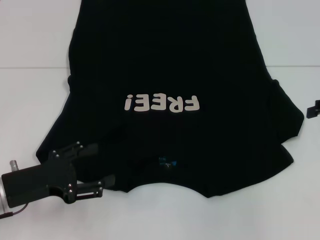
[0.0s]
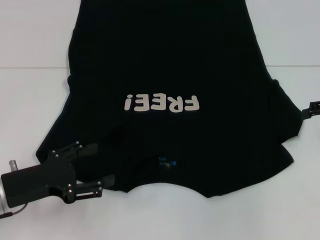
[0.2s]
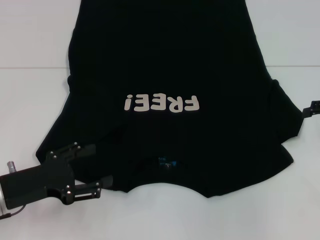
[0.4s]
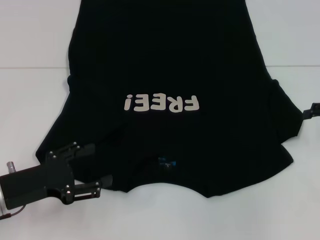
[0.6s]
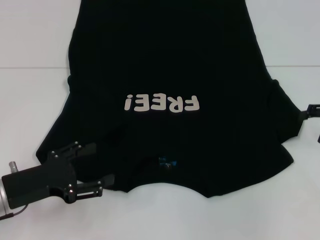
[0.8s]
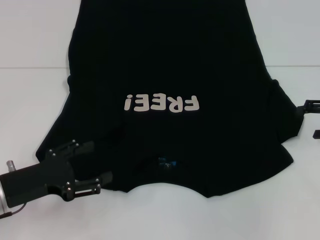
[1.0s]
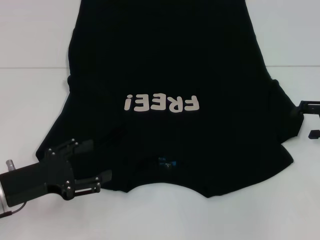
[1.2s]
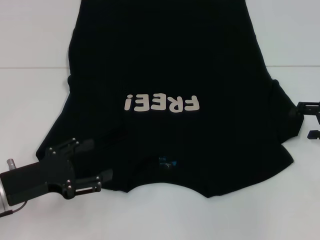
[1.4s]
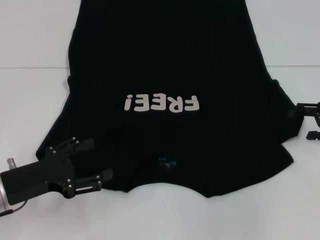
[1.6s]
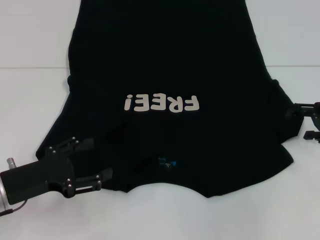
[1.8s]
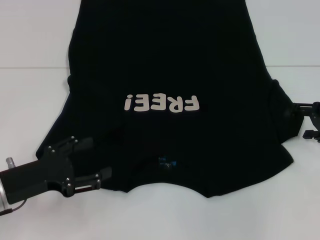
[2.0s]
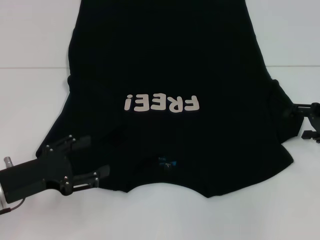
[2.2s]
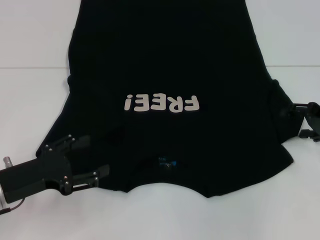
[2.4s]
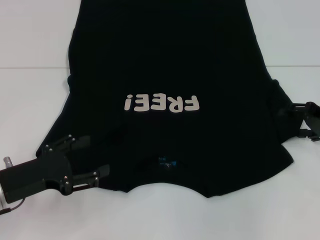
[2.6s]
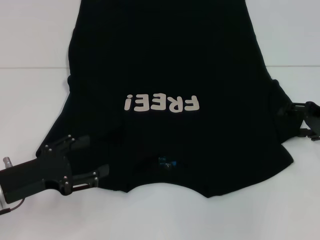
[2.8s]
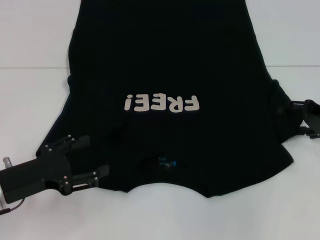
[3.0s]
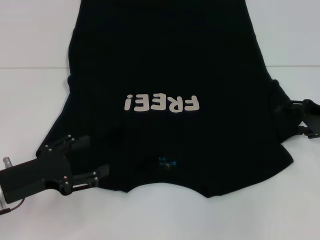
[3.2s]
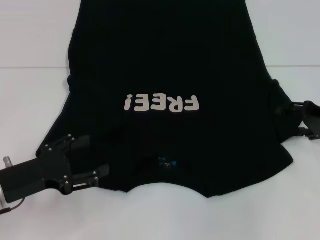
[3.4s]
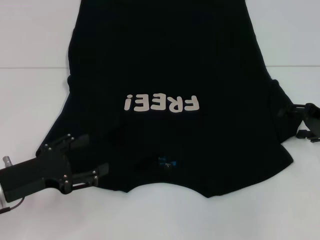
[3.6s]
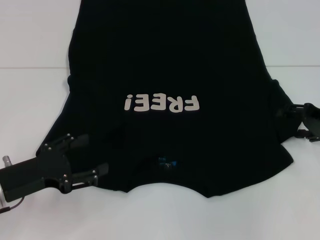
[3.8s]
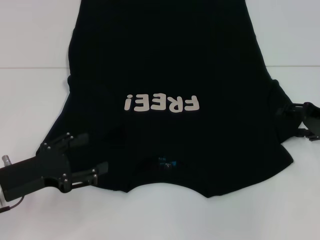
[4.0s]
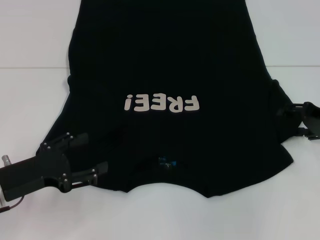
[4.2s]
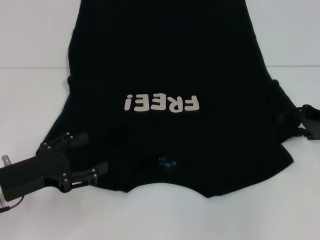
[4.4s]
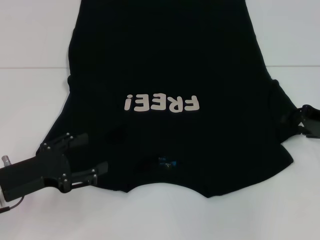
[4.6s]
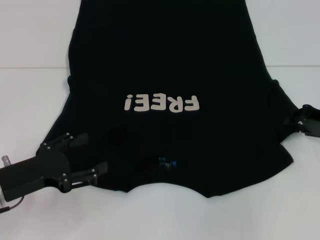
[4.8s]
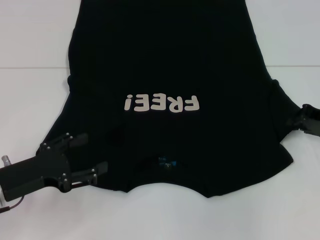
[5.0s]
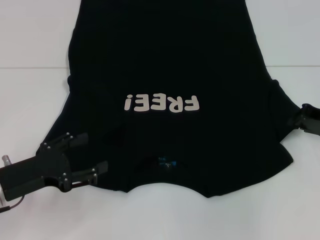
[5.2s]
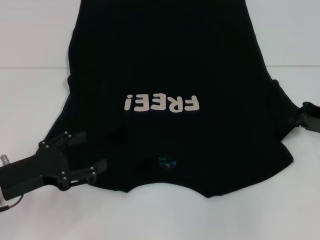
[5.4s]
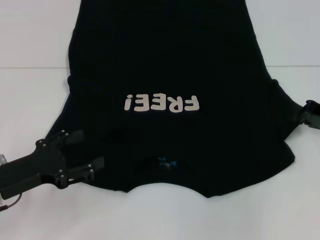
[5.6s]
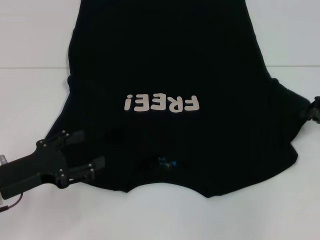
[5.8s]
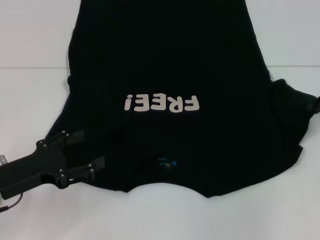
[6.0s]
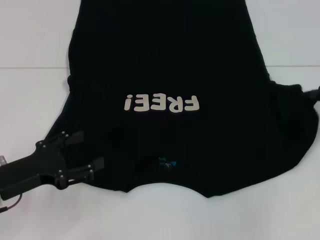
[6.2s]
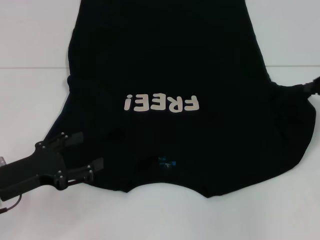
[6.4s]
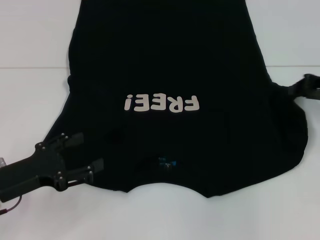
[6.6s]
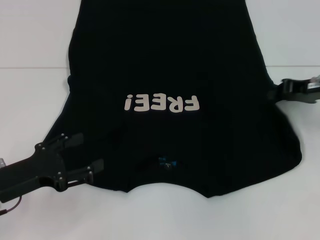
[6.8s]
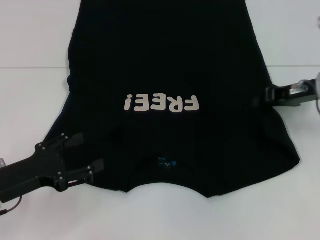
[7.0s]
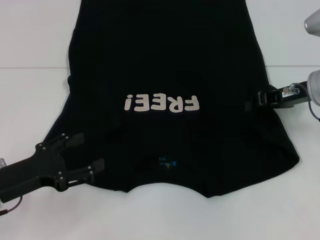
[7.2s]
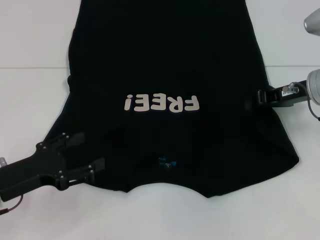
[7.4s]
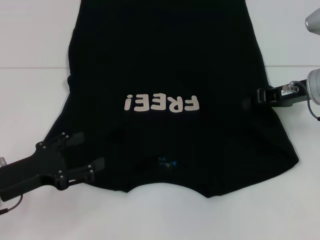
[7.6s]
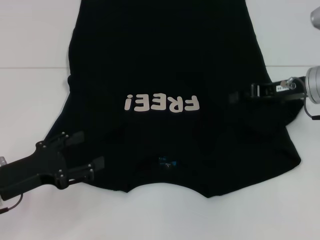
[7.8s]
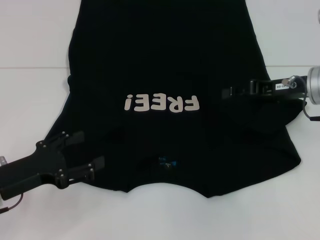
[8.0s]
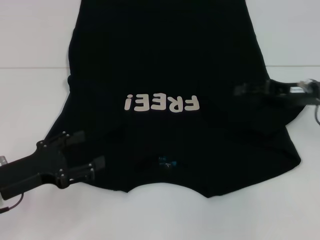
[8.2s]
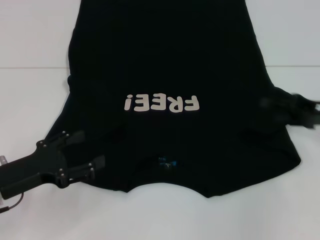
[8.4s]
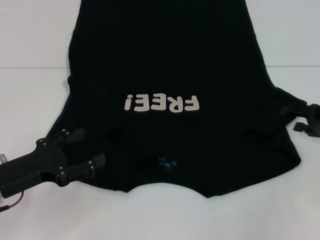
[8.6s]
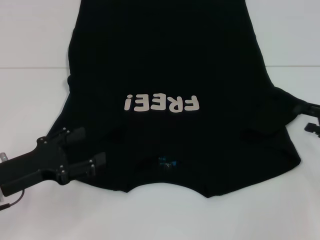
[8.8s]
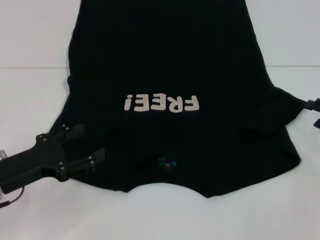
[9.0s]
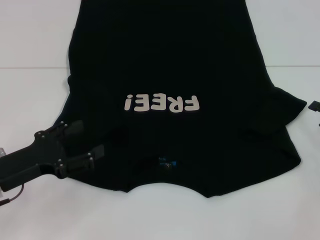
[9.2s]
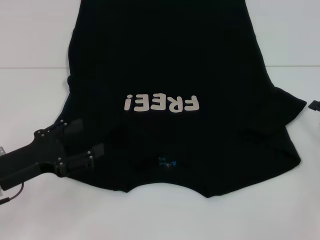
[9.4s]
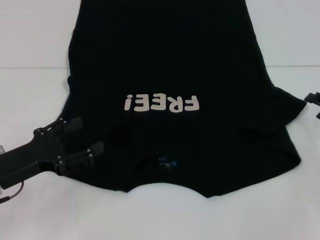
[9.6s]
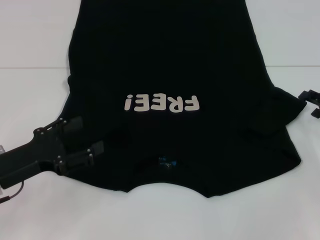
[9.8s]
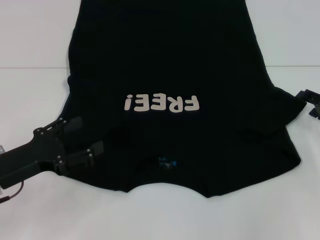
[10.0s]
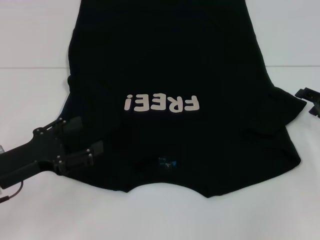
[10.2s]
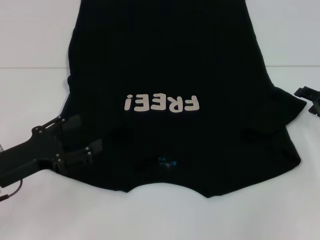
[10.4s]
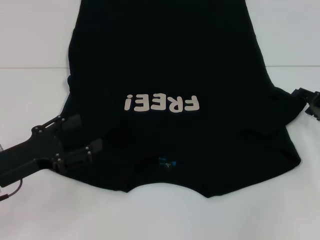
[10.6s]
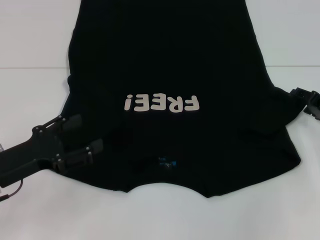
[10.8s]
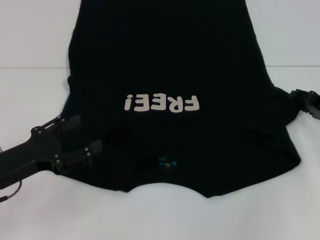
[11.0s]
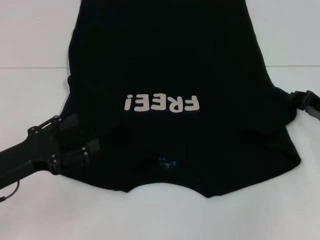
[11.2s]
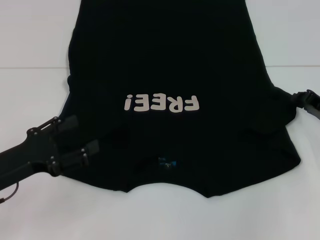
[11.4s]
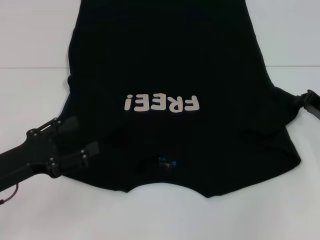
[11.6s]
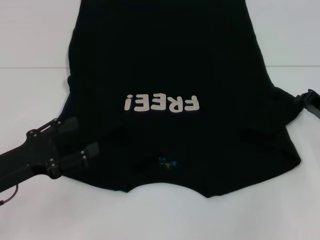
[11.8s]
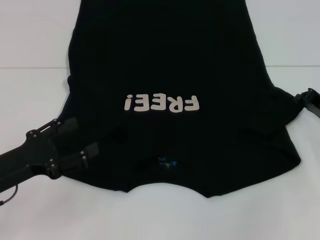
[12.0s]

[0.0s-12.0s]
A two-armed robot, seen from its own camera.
0.0s to 1.6s: The right gripper goes about 5 cm downward.
1.6s to 3.0s: The grippers stay close to where they were, moving slightly.
3.0s to 4.4s: Both grippers stay about where they are.
4.4s to 6.0s: The right gripper closes.
6.0s to 7.6s: The right gripper is displaced to the left by about 10 cm.
7.6s to 9.0s: The right gripper heads to the right, backward and downward, covering some 15 cm, and opens up.
9.0s to 10.4s: The grippers make only small movements.

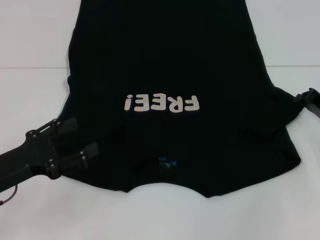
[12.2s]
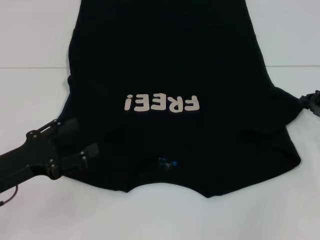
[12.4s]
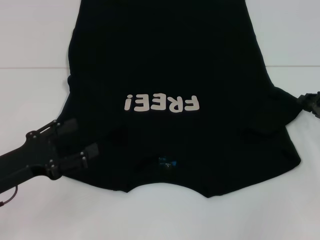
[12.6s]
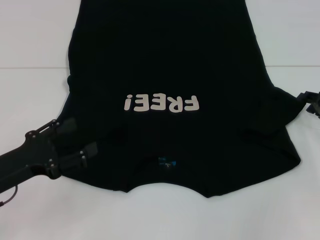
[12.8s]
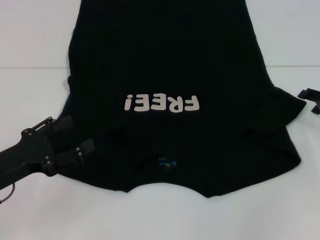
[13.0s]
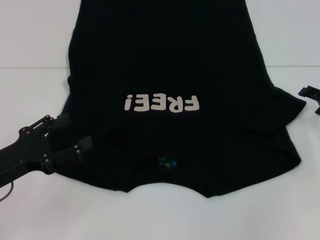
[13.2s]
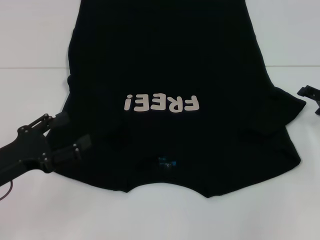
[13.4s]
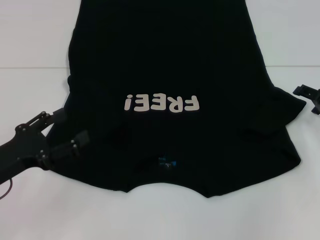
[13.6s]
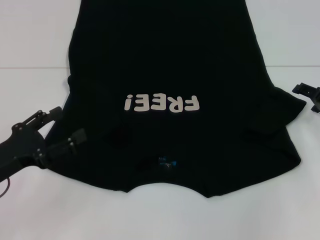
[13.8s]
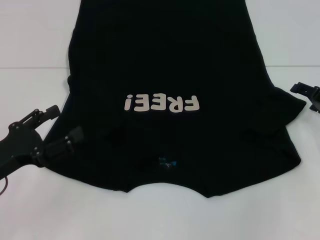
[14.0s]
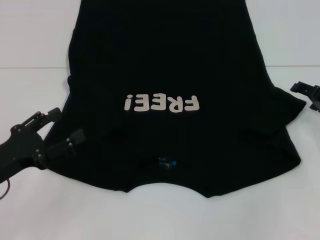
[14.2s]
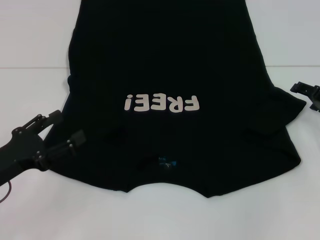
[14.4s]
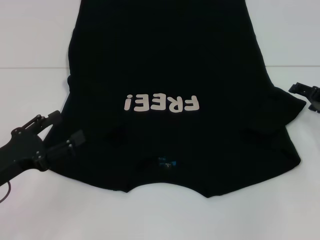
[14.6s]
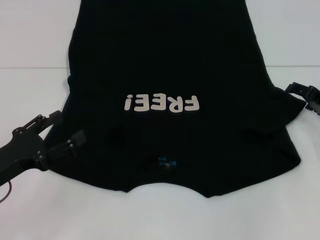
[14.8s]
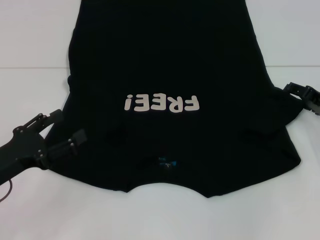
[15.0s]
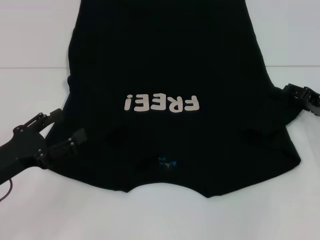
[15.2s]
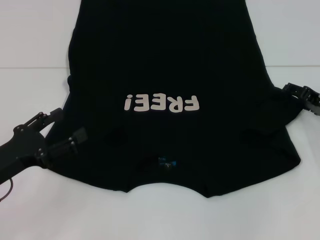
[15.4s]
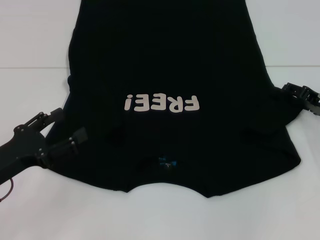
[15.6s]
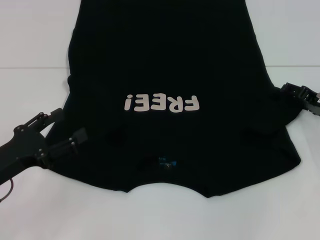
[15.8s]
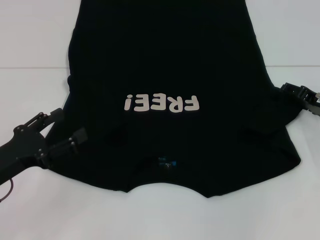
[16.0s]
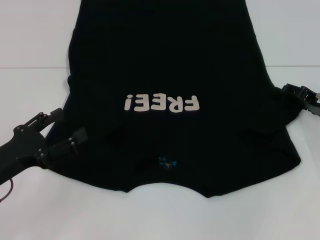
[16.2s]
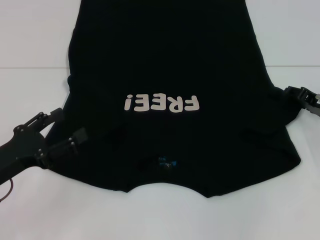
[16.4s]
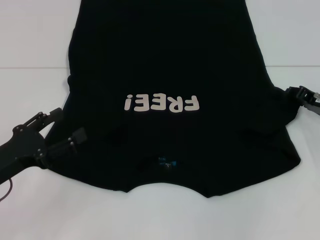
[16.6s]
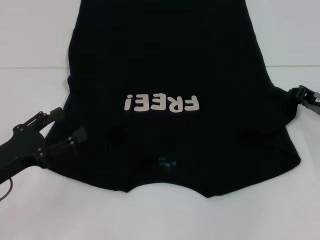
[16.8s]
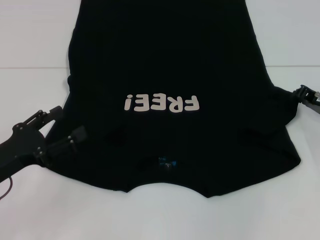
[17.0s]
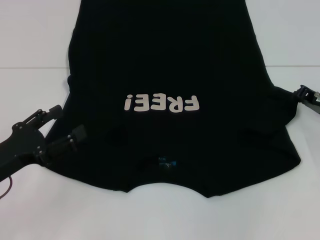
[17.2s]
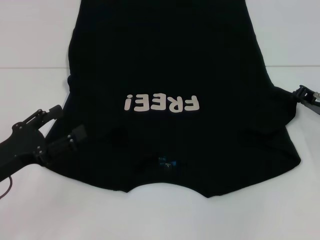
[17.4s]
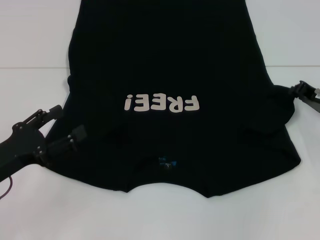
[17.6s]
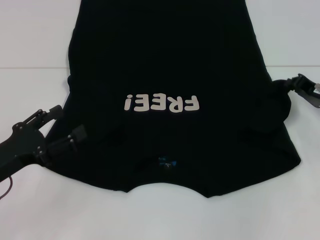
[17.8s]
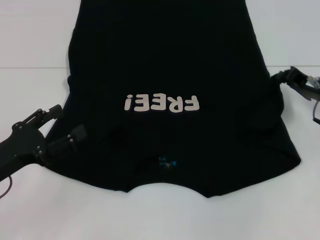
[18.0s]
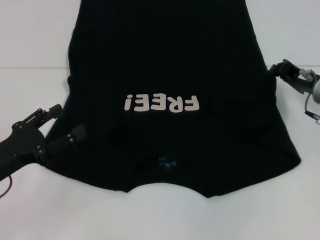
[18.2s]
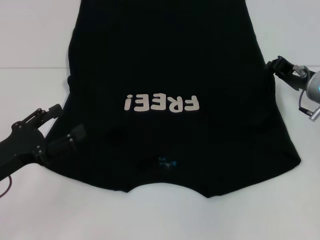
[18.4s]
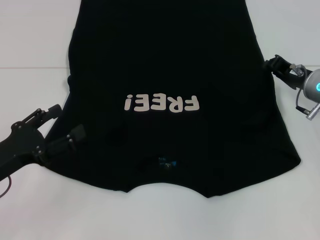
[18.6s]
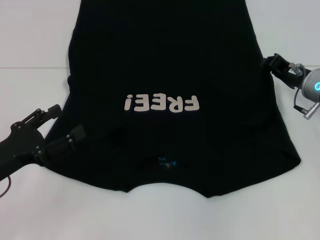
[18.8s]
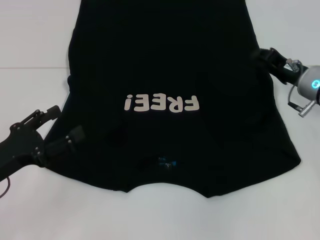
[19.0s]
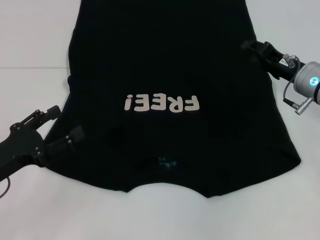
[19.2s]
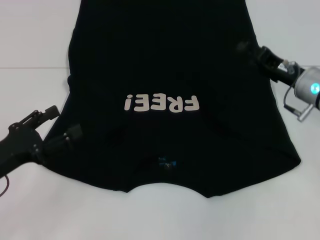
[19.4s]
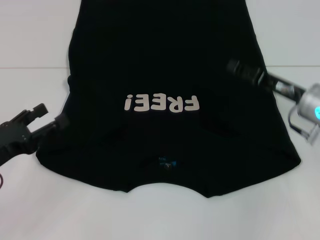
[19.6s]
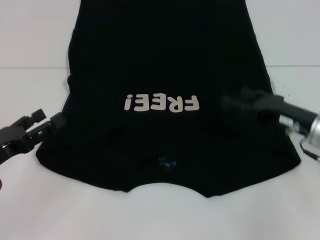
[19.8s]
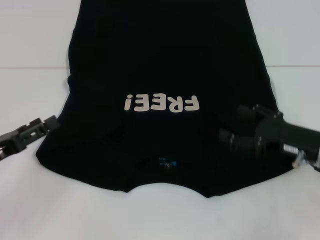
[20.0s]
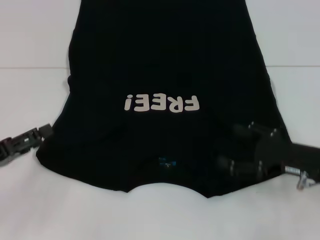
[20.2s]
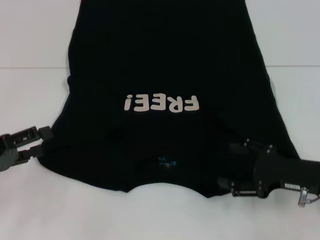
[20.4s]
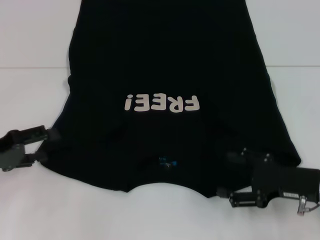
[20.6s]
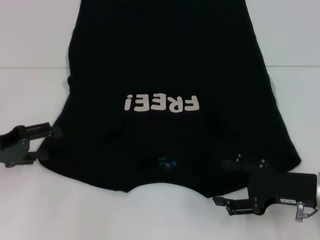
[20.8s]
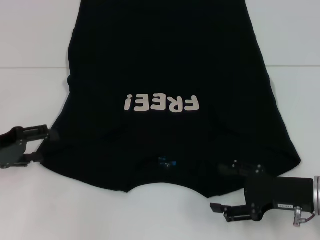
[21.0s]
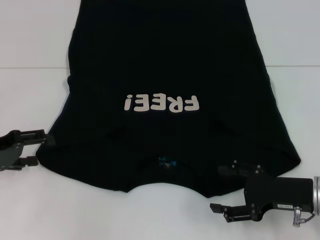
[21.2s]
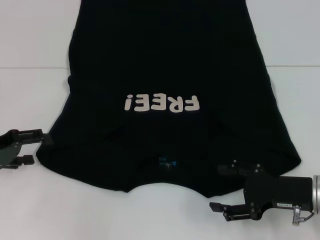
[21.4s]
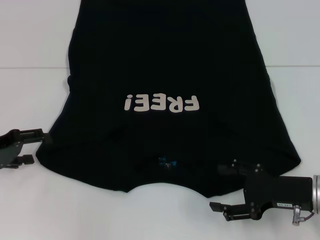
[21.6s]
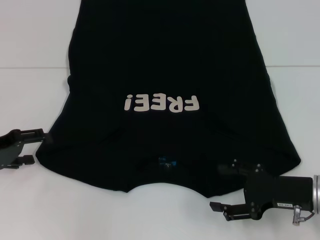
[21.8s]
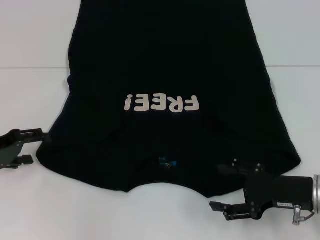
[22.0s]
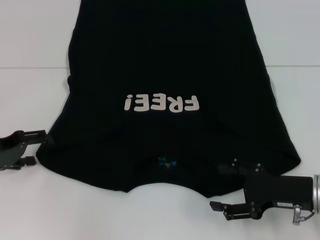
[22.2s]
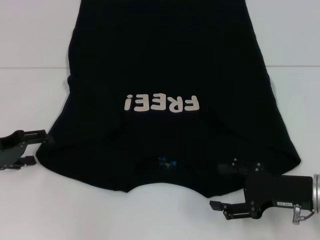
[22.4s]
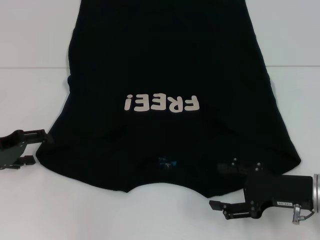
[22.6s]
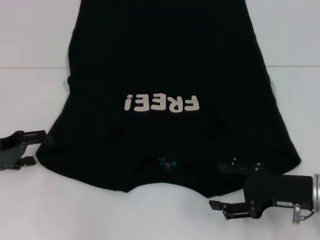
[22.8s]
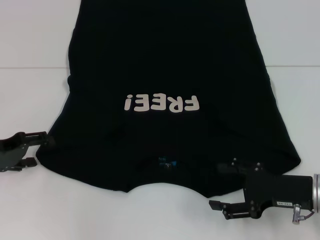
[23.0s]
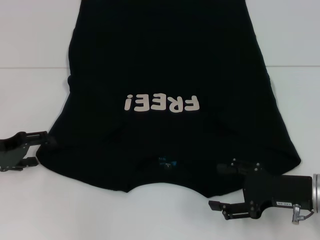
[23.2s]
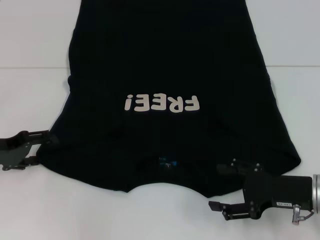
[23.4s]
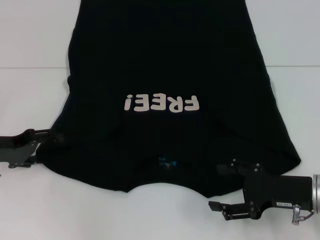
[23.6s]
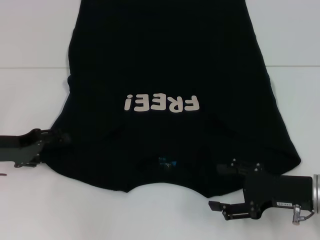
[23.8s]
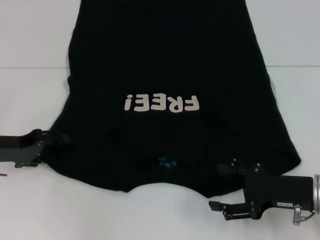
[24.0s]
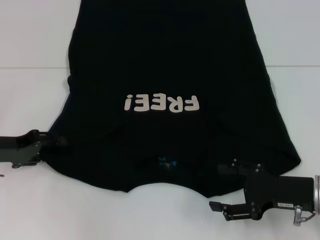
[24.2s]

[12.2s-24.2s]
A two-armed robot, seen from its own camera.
Step, 12.2s to 19.2s: Fold the bottom right sleeve with your right hand.
13.8s to 15.2s: The grippers stay close to where they were, moving slightly.
16.6s to 18.2s: The right gripper closes up.
18.2s to 19.8s: The right gripper goes about 5 cm backward, and opens up.
19.8s to 21.2s: The left gripper shifts roughly 5 cm forward, while the right gripper shifts about 5 cm backward.
21.2s to 24.2s: There are only small adjustments of the grippers.
